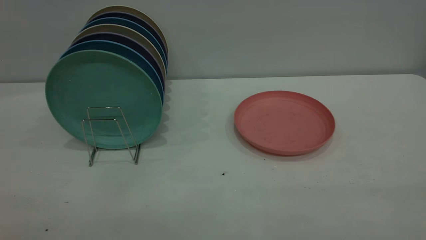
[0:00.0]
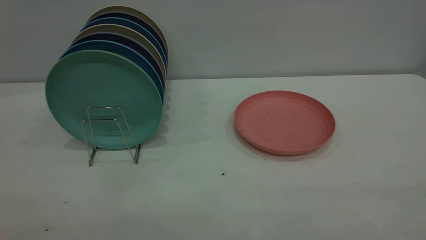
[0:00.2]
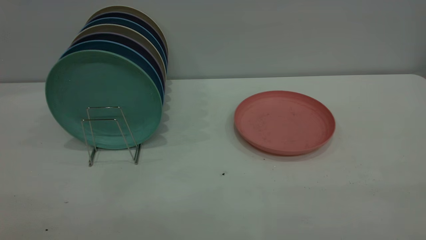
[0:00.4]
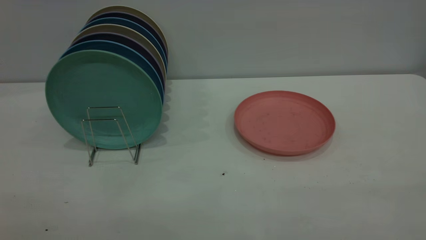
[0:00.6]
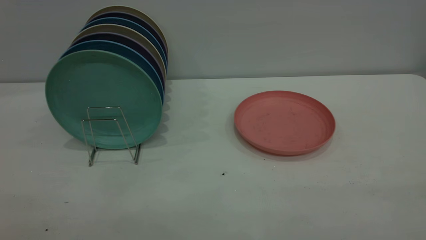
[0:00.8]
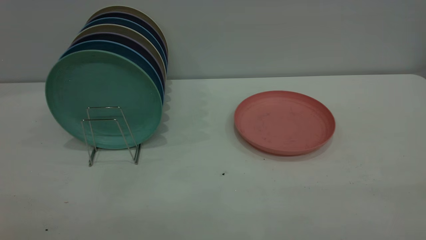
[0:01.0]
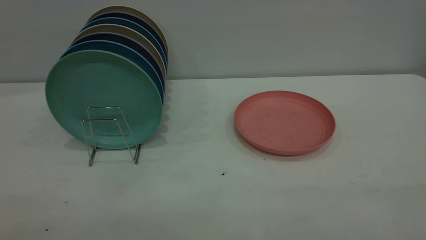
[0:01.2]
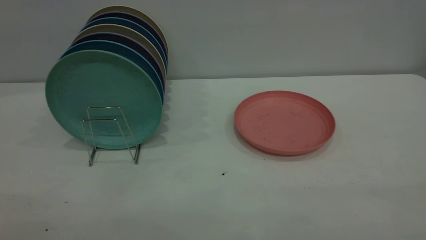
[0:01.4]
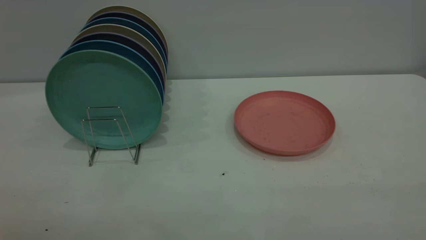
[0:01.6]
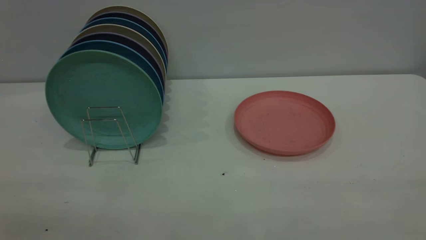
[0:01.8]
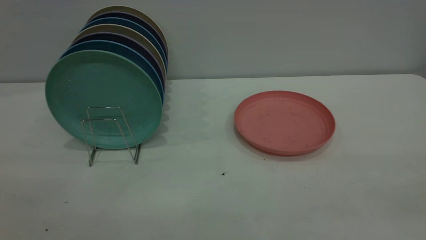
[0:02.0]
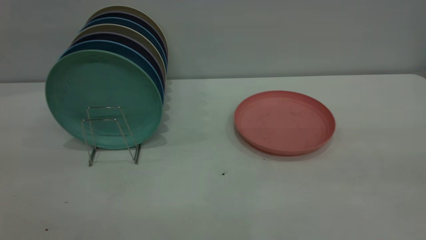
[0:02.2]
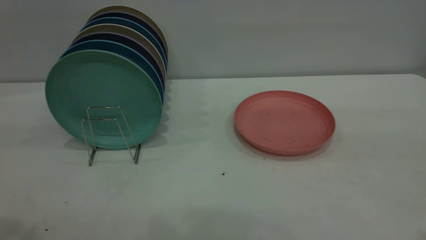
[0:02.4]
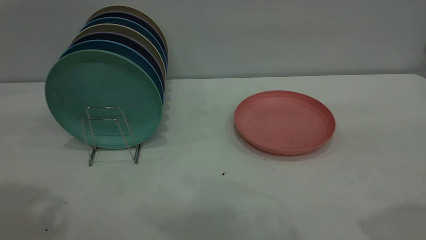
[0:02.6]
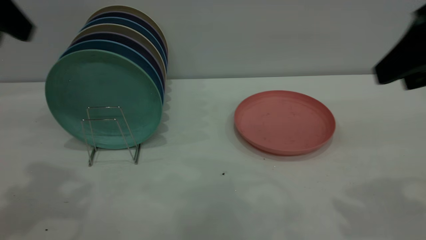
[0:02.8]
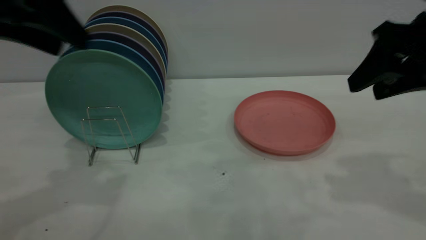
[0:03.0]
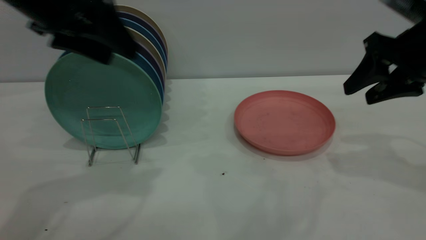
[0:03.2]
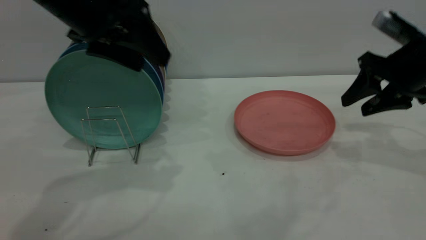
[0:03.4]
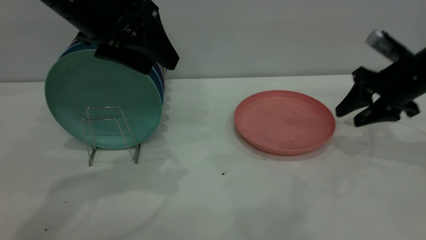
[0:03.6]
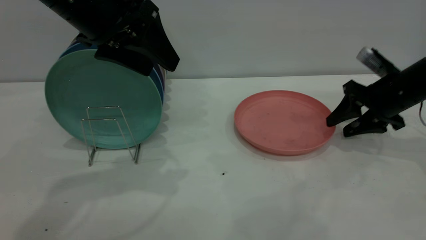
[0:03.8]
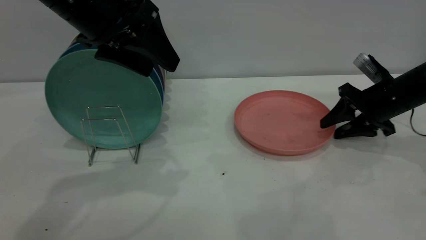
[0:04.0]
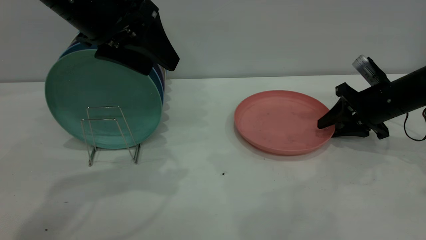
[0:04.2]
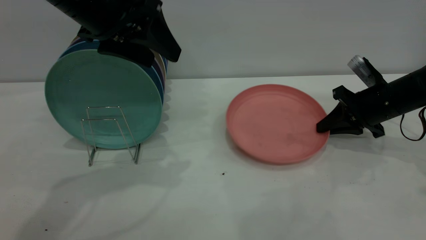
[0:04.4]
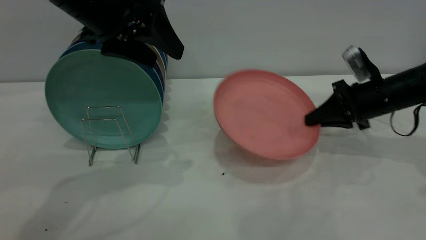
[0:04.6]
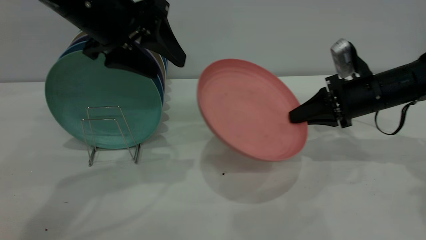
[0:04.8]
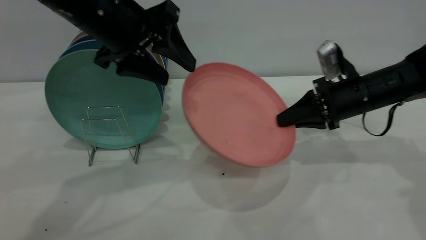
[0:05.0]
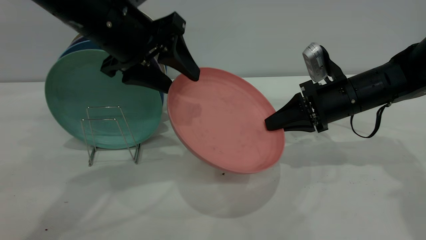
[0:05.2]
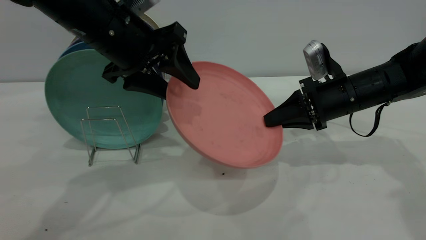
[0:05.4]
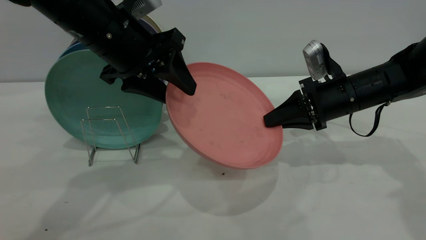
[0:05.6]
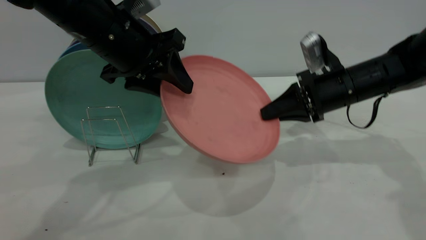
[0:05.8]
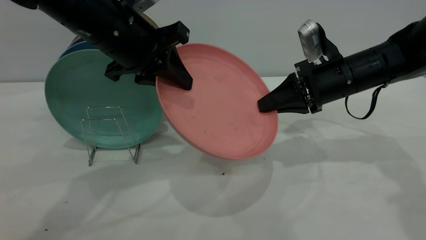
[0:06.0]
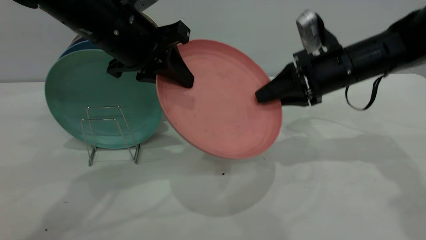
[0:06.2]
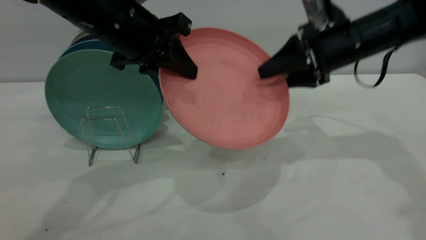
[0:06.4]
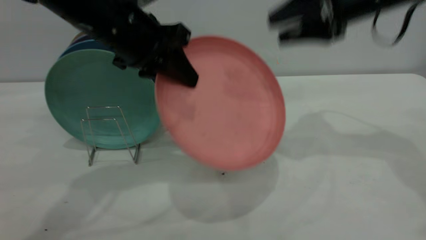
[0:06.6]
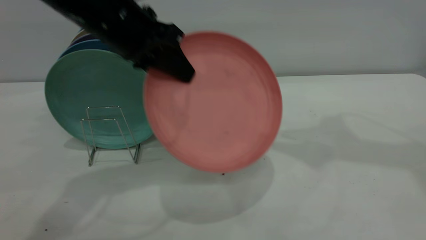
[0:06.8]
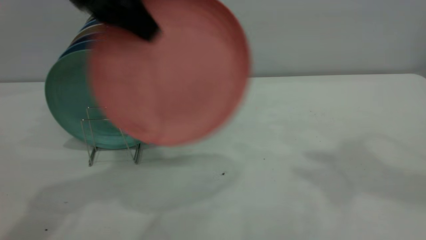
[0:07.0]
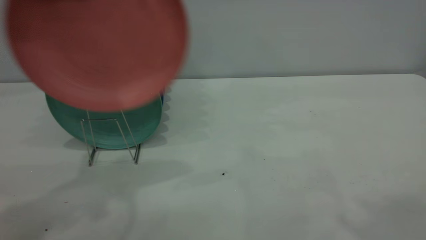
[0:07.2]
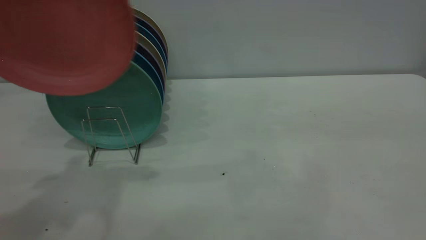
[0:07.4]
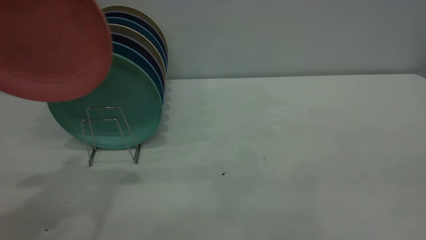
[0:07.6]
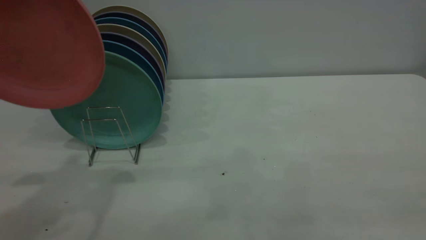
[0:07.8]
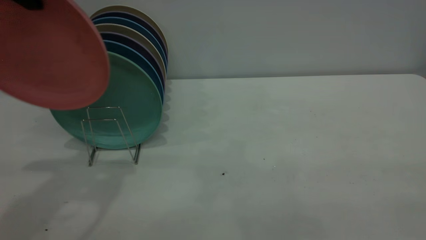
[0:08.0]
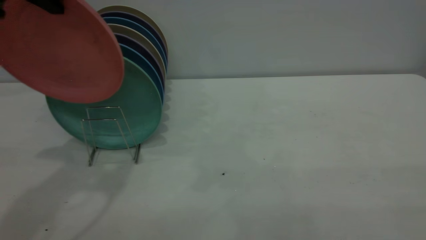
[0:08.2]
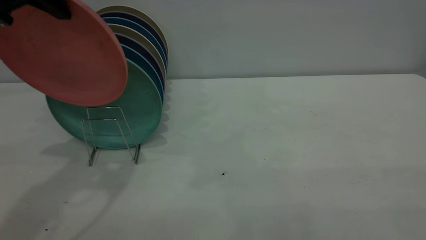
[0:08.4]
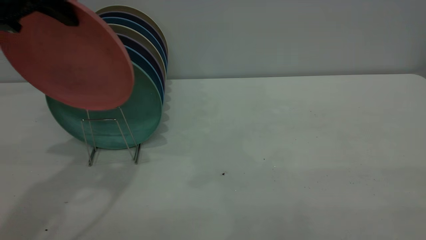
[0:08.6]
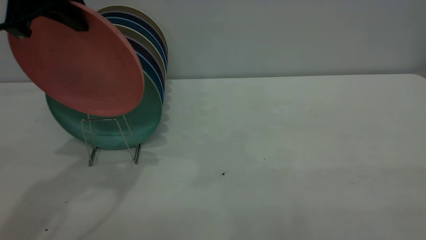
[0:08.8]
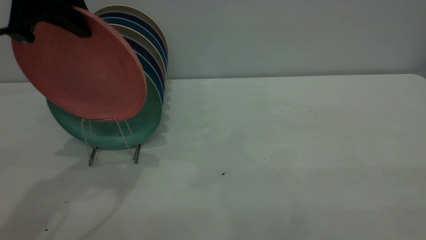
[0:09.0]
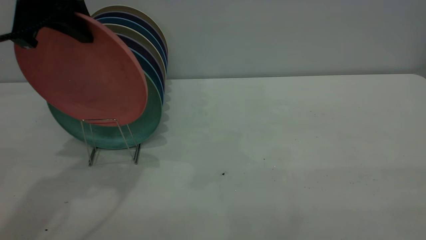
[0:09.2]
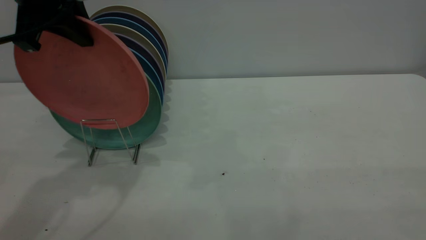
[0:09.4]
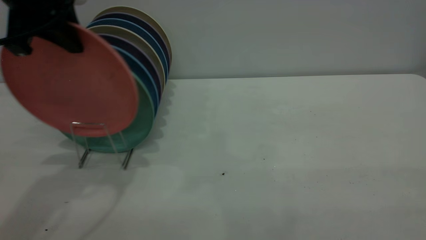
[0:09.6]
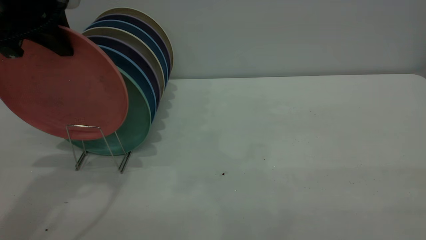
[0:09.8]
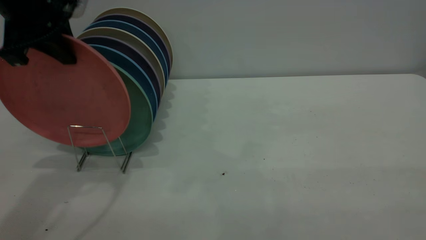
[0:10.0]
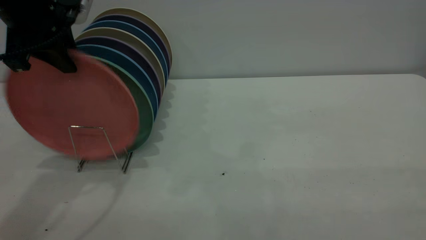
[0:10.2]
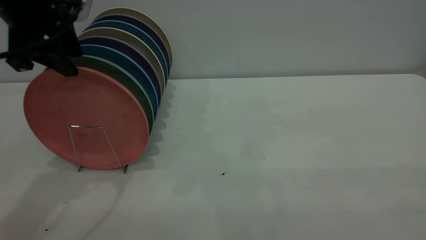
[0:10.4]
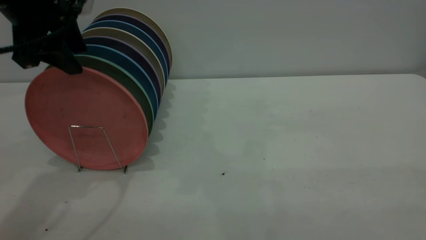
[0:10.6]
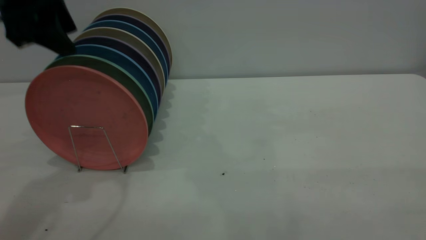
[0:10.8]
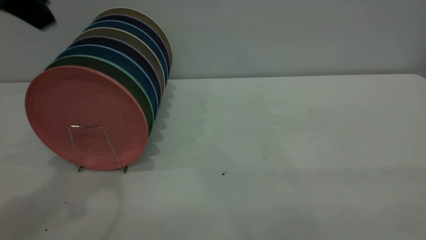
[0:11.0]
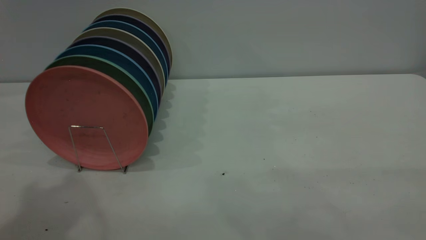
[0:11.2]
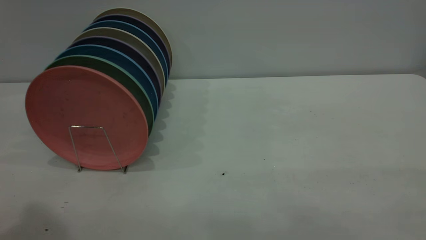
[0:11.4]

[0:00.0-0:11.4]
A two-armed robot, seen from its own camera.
Task of the whole recording: the right gripper grasp the pink plate, the right gripper pass the pink plate to the left gripper, and the left gripper place the pink plate on the plate rack.
Step, 0:00.0 to 0:04.6: Pick up the plate with the right gripper.
Step, 0:04.8 to 0:06.4: Pass the plate from the right gripper to the left gripper.
Step, 0:06.8 to 0:10.8: Place the plate on the shelf.
0:00.0 to 0:01.4: Both grippers stay put.
0:01.4 to 0:02.8: The grippers both shift forward by approximately 30 cm. The right gripper opens up.
0:02.8 to 0:04.2: The right gripper moves downward and forward, about 30 cm, and closes its fingers, while the left gripper heads to the right, forward and downward, covering approximately 15 cm.
0:04.2 to 0:05.6: The left gripper shifts by roughly 5 cm, while the right gripper goes approximately 10 cm to the left, and closes up.
0:05.6 to 0:07.2: The left gripper travels upward and to the left by roughly 20 cm, and closes up. Meanwhile the right gripper heads upward and backward, covering approximately 50 cm, and opens its fingers.
0:07.2 to 0:08.6: The right gripper goes approximately 25 cm downward and backward; the left gripper moves downward, about 5 cm.
0:08.6 to 0:10.0: The grippers stay close to where they were, moving slightly.
0:10.0 to 0:11.4: The left gripper heads backward and upward, covering about 25 cm, and opens up.

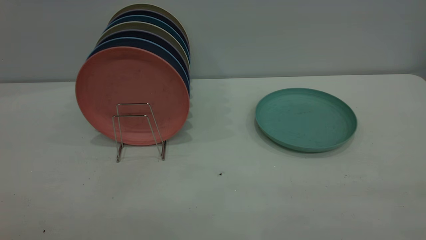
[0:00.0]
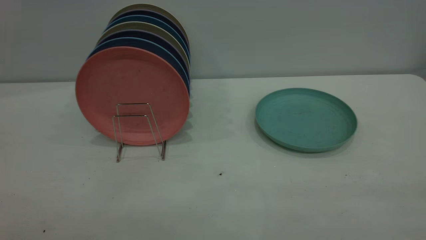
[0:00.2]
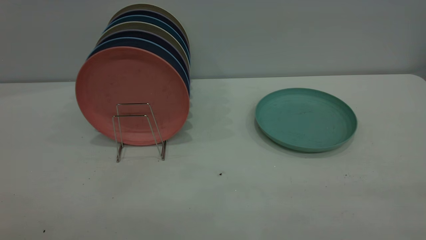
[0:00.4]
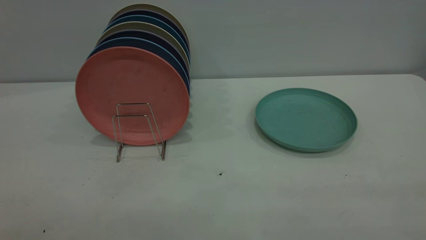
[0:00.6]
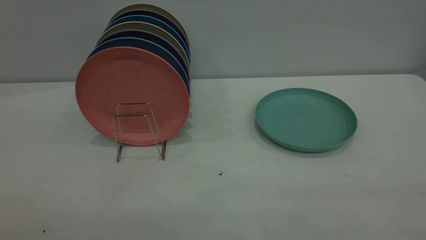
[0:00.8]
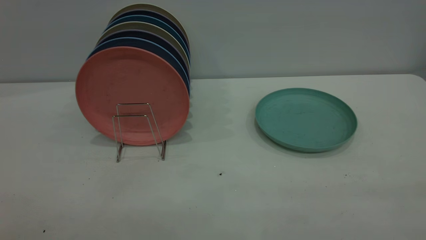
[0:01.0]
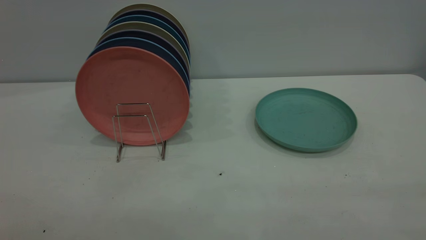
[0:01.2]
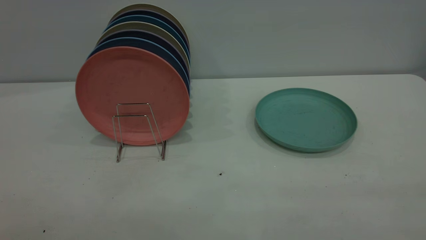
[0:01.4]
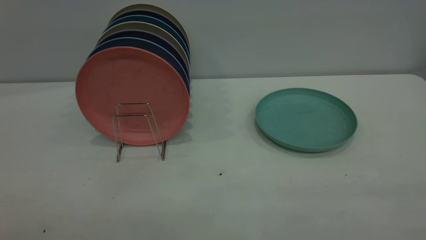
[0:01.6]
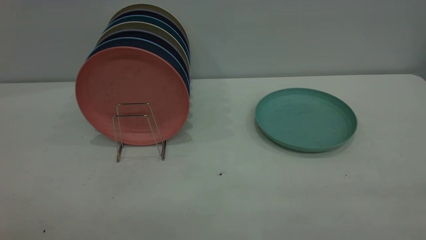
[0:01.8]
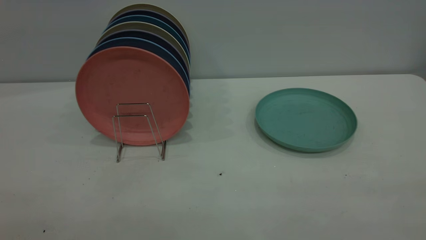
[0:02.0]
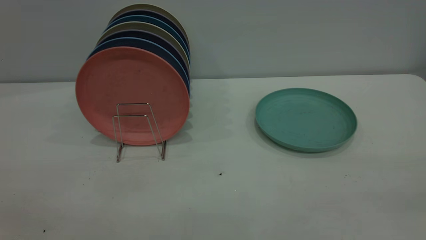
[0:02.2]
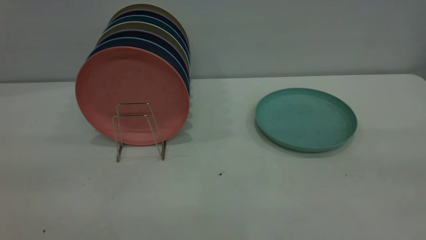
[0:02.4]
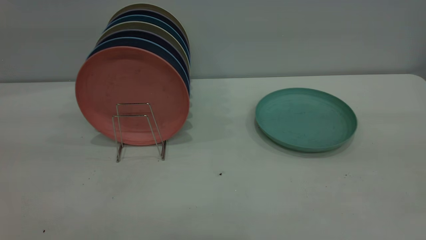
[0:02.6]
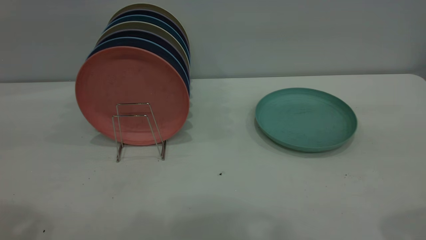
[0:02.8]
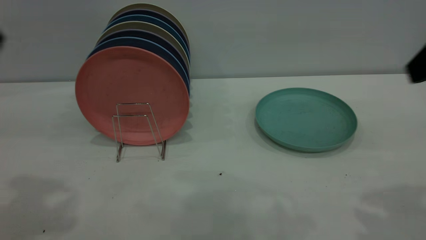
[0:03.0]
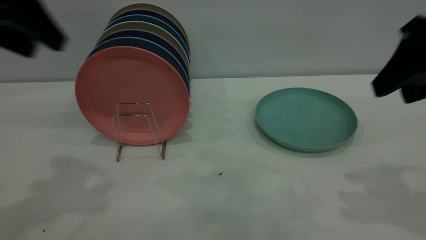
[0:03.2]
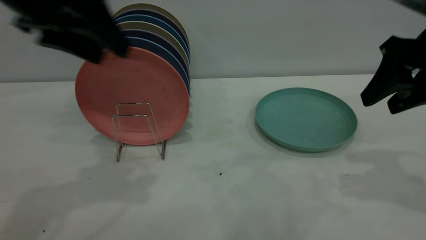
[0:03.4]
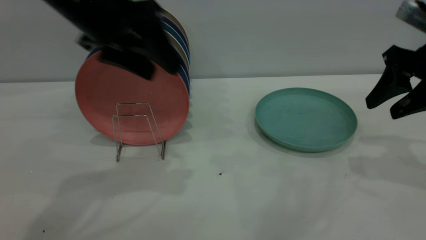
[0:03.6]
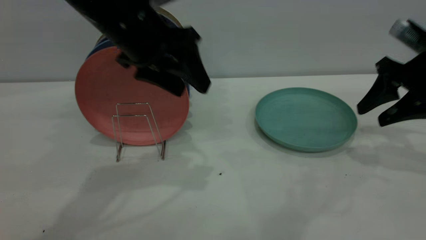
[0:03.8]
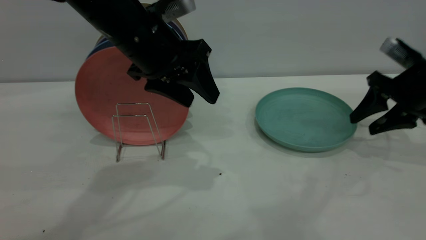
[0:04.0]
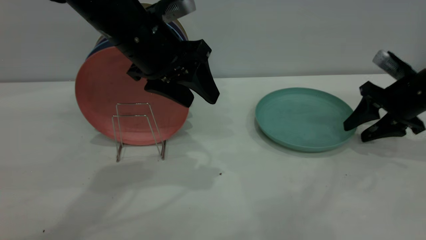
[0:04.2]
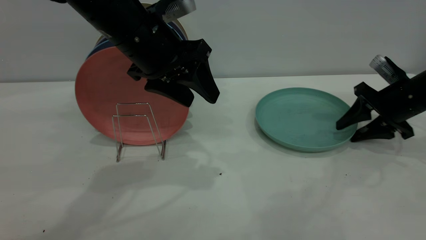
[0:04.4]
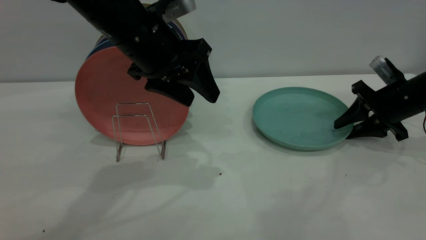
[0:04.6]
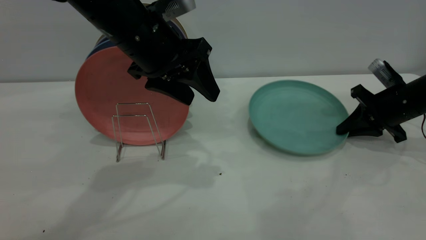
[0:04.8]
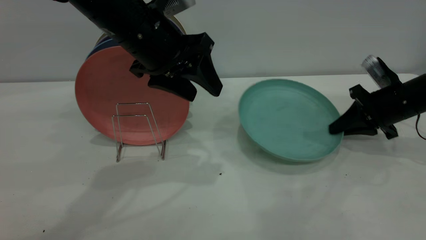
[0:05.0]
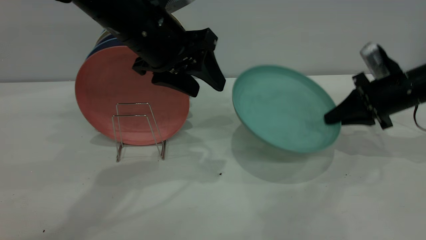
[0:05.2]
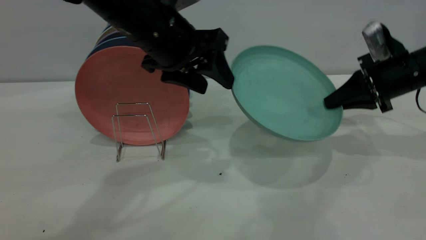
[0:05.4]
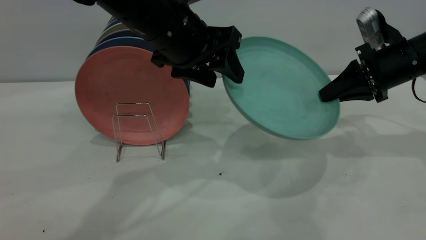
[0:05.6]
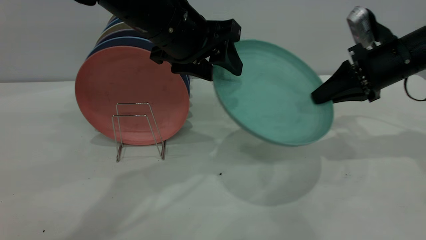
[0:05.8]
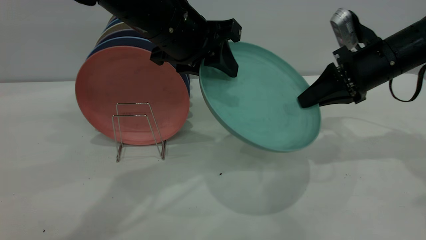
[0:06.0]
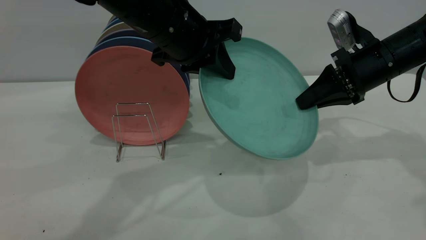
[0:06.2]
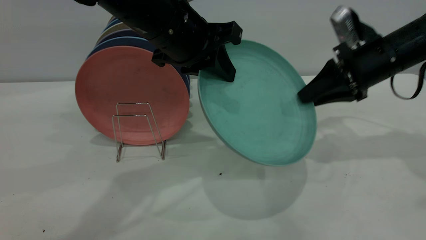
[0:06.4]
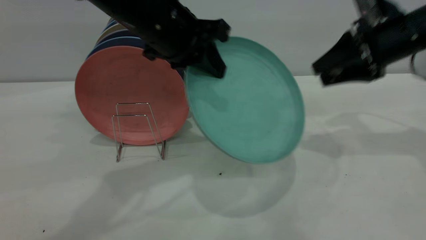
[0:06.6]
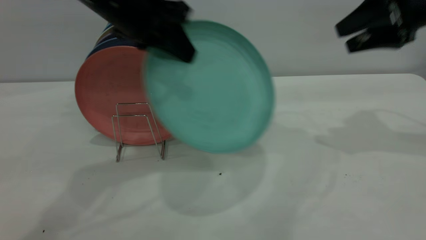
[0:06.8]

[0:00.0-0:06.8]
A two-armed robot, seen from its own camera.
Task of the whole recording: the right gripper grasp the green plate, the right gripper pass the green plate to the left gripper, and the left gripper place the green plate on the plate rack.
Step, 0:00.0 to 0:05.0: Pick up the plate with the right gripper.
0:00.0 to 0:01.4: Both grippers stay about where they are.
0:02.8 to 0:04.0: The left gripper travels to the right, forward and downward by about 25 cm; the right gripper heads forward and downward, covering about 30 cm.
0:04.0 to 0:05.4: The right gripper closes its fingers.
0:05.4 to 0:06.8: The left gripper shifts some 10 cm to the left and upward, and closes. The right gripper heads upward, covering some 15 cm, and opens.
